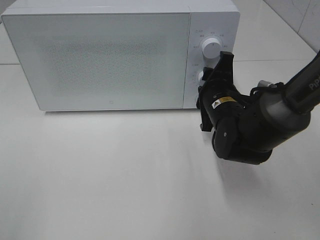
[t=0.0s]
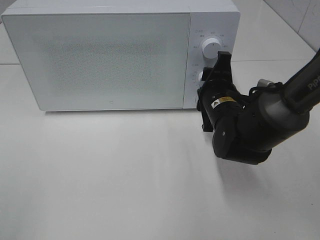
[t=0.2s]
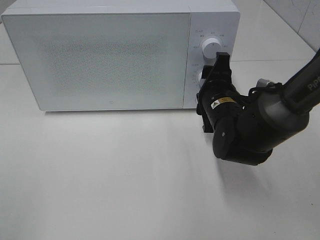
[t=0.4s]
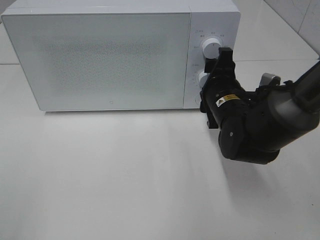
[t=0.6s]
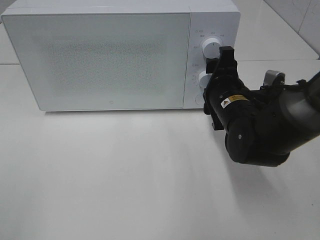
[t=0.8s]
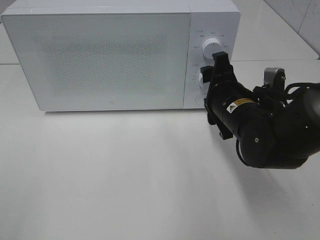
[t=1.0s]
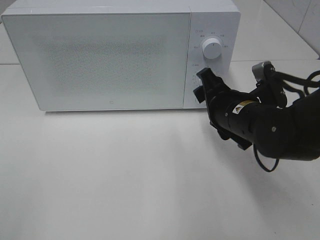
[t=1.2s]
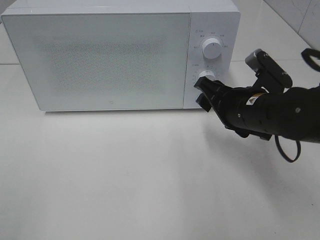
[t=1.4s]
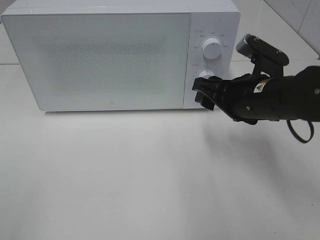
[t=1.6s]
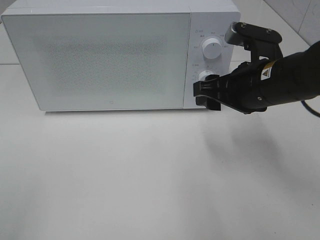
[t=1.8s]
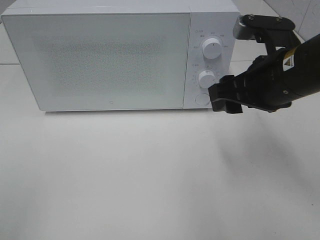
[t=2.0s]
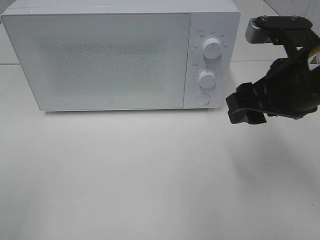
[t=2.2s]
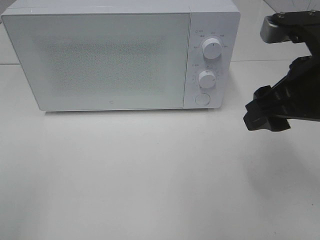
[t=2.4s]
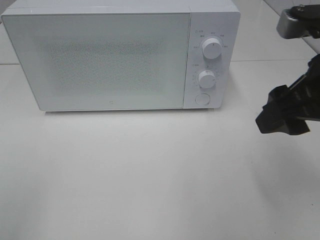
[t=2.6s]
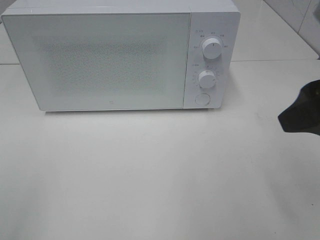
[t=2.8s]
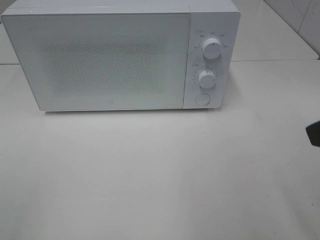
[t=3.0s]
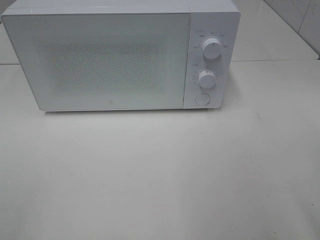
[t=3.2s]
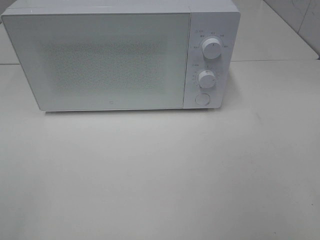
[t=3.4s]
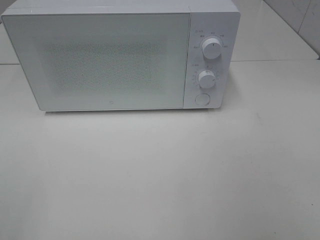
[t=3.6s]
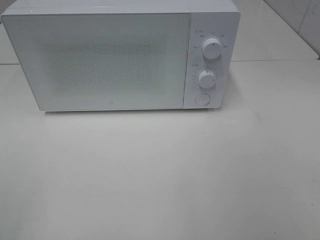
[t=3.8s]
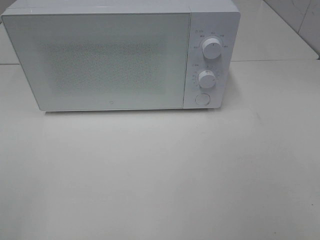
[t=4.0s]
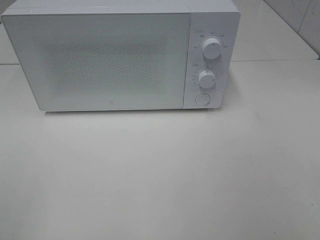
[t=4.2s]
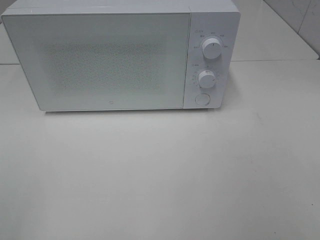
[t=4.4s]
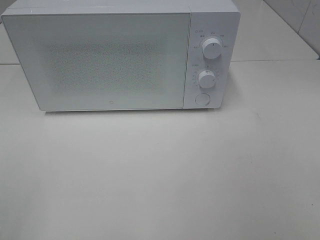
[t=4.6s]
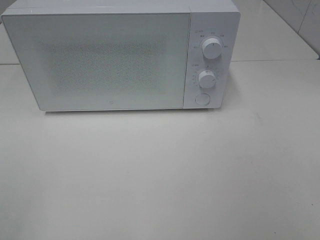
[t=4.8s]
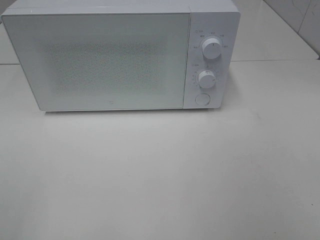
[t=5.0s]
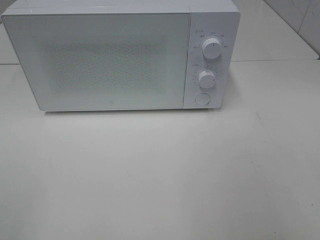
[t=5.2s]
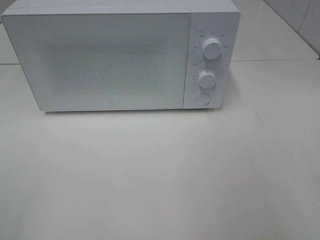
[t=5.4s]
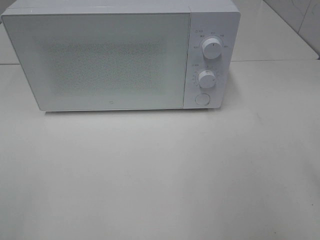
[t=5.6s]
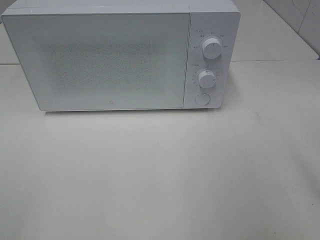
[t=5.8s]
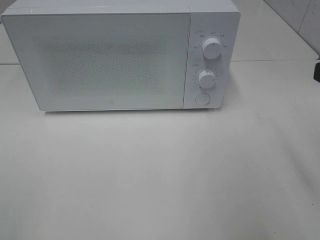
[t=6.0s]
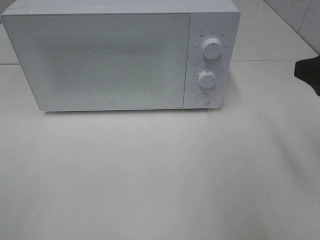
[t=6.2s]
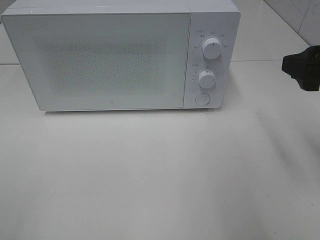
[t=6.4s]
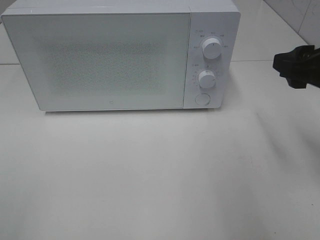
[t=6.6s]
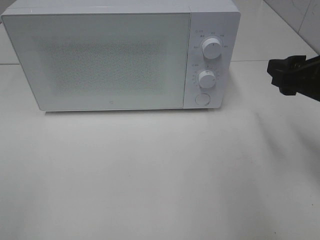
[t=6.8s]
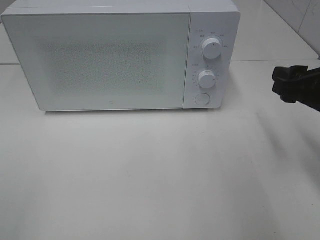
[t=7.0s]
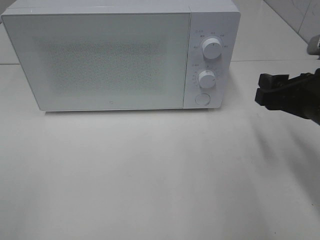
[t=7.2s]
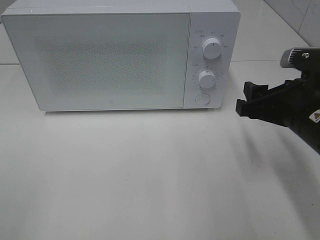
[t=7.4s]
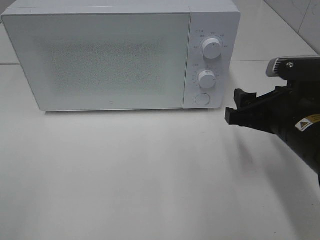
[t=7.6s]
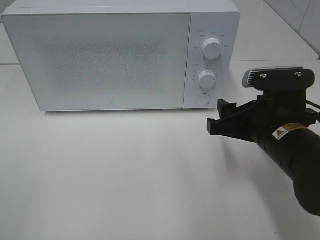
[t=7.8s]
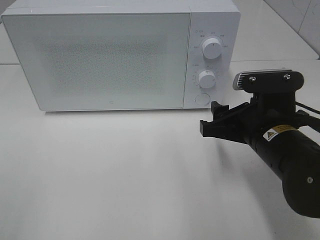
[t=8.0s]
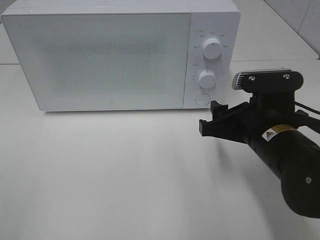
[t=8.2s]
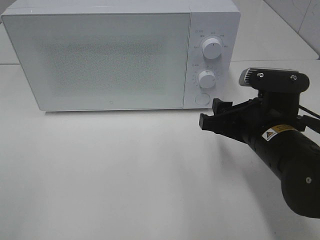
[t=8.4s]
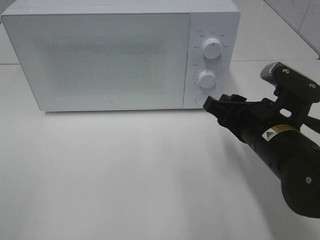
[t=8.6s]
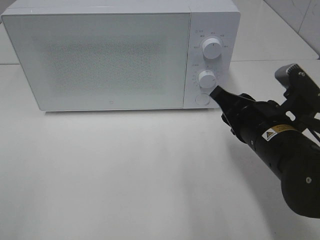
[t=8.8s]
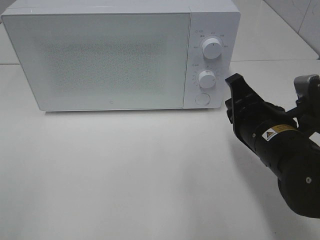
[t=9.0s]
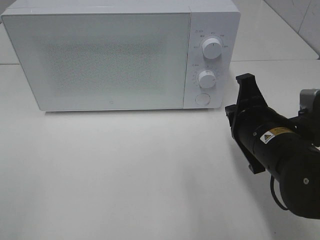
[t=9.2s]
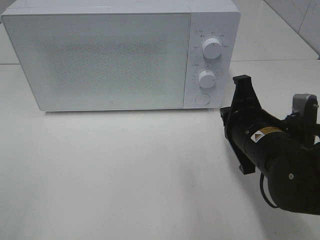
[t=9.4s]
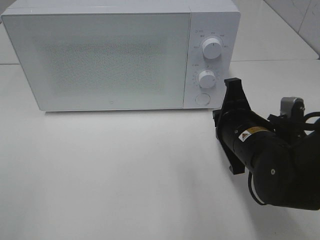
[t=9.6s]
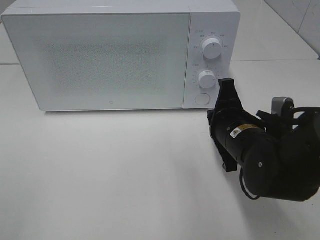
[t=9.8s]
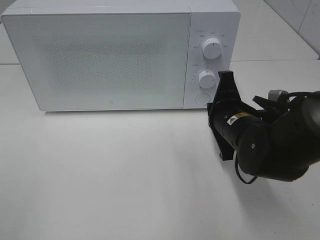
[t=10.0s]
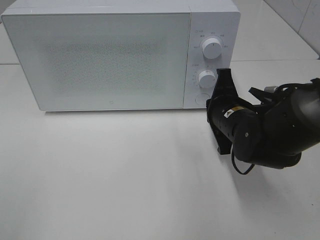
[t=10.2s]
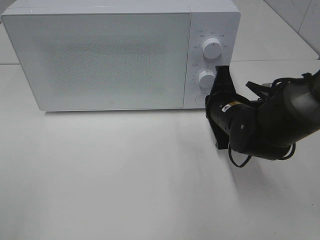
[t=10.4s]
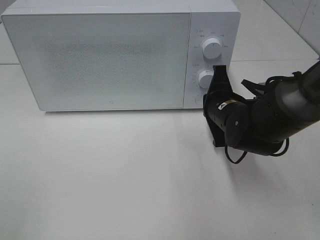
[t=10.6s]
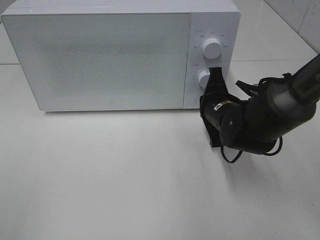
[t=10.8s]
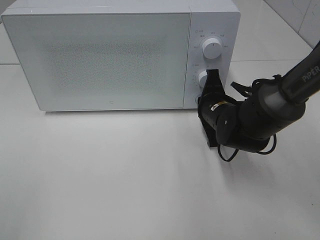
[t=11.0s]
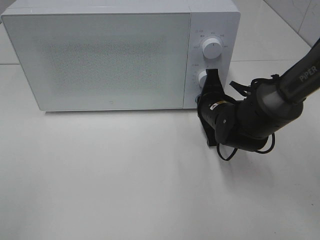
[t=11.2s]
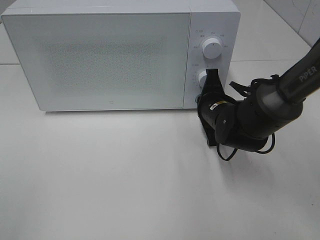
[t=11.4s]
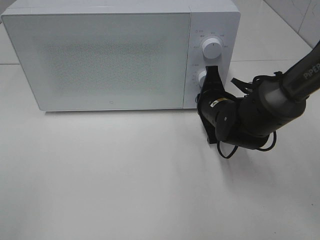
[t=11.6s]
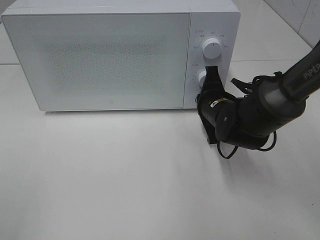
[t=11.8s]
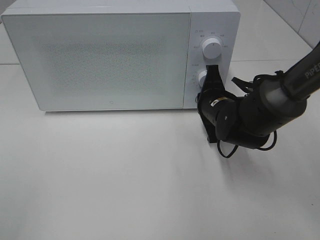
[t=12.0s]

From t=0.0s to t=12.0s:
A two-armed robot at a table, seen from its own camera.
Task of the whole recording: Heat the burger.
From t=0.0s to t=1.6s: The right gripper goes approximately 5 cm upward.
From t=1.6s to t=3.0s: The right gripper is displaced backward, upward and to the right by roughly 20 cm.
From t=6.0s to t=7.6s: The right gripper is displaced downward, to the left and forward by roughly 15 cm.
From t=7.6s to t=9.0s: The right gripper closes its fingers.
From t=9.0s to t=10.4s: The right gripper shifts some 10 cm forward.
From t=10.4s to t=12.0s: There are only small adjustments of the grippers.

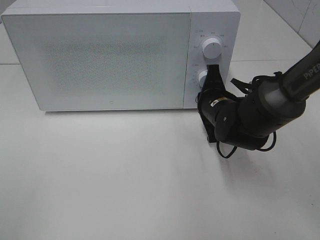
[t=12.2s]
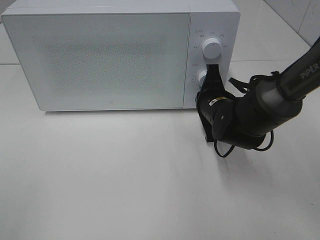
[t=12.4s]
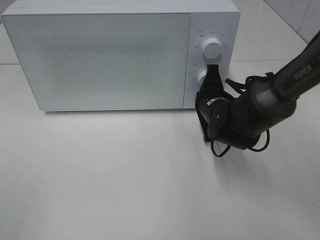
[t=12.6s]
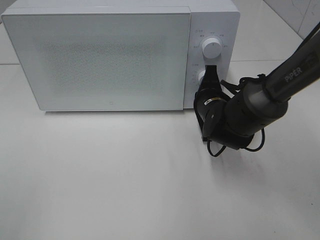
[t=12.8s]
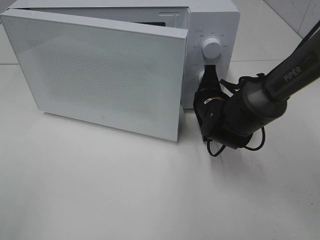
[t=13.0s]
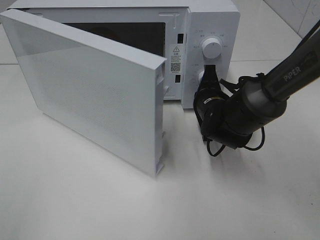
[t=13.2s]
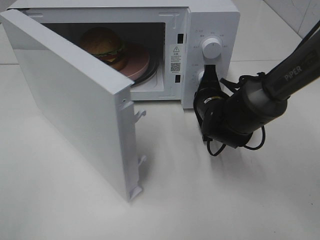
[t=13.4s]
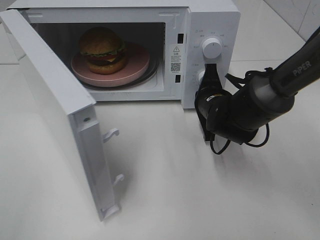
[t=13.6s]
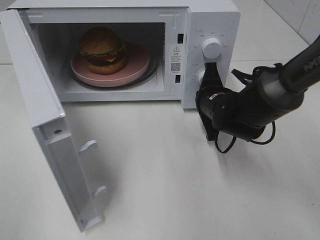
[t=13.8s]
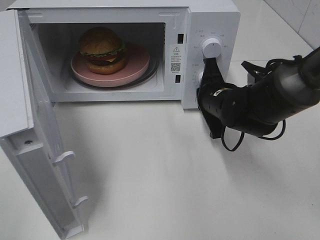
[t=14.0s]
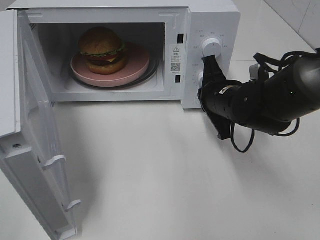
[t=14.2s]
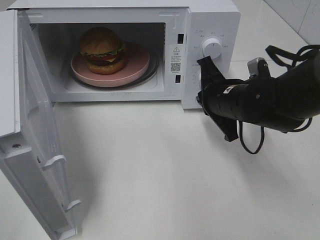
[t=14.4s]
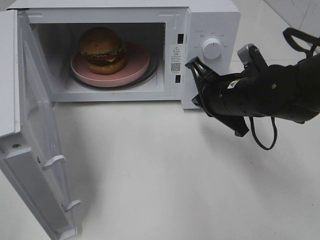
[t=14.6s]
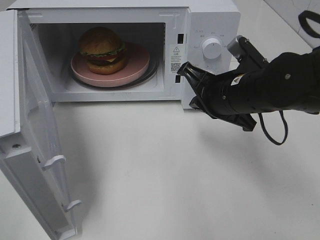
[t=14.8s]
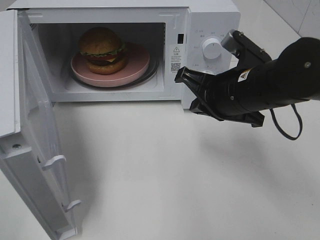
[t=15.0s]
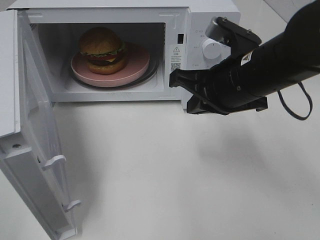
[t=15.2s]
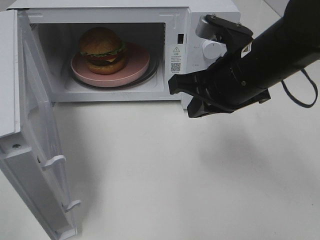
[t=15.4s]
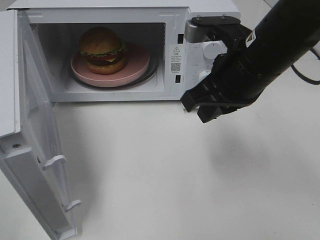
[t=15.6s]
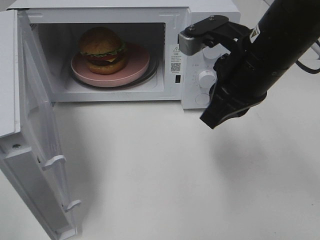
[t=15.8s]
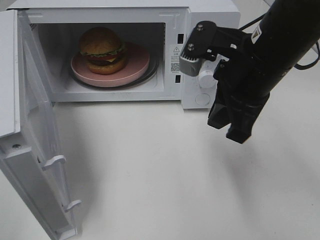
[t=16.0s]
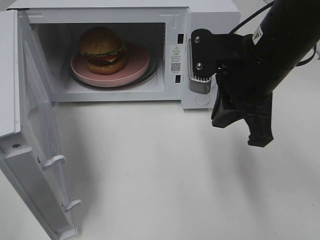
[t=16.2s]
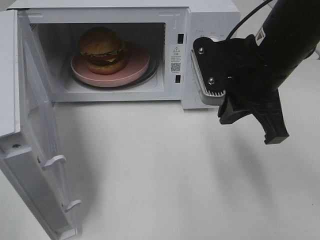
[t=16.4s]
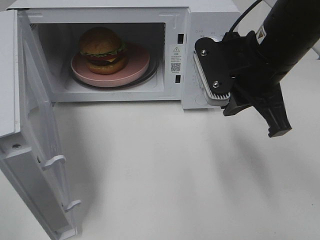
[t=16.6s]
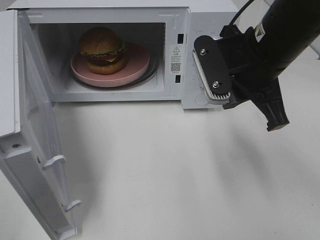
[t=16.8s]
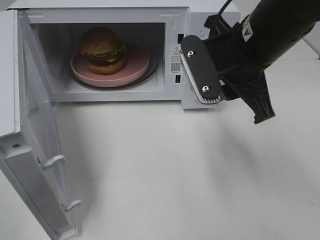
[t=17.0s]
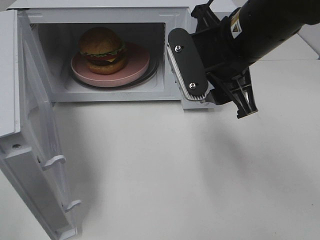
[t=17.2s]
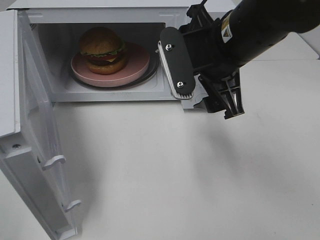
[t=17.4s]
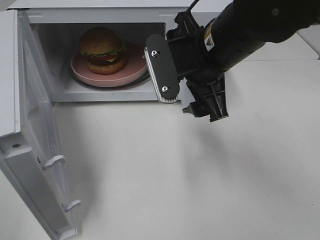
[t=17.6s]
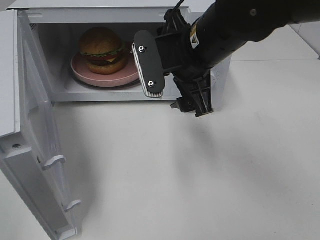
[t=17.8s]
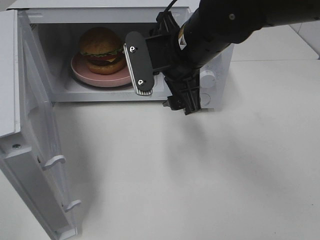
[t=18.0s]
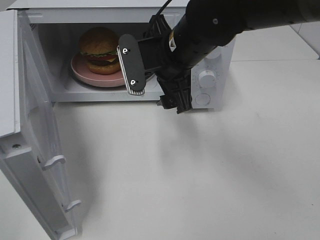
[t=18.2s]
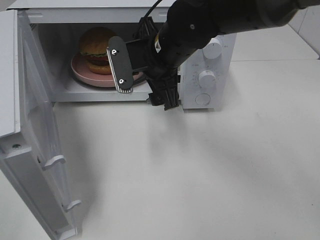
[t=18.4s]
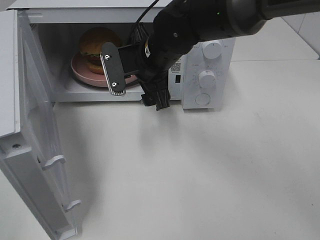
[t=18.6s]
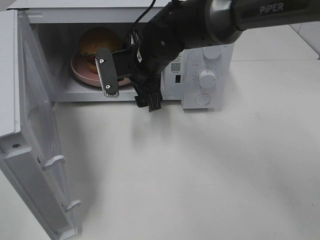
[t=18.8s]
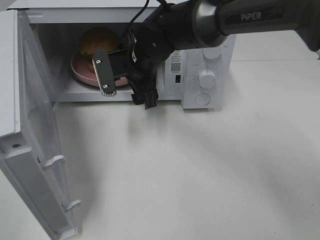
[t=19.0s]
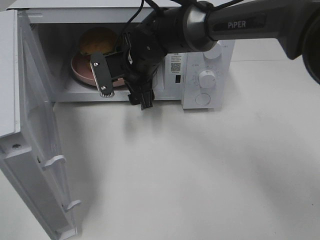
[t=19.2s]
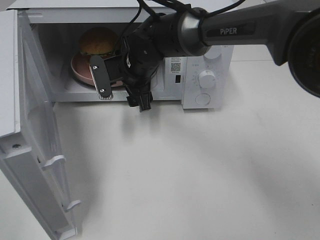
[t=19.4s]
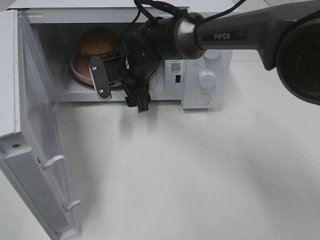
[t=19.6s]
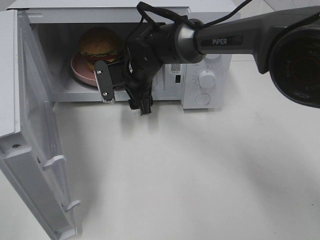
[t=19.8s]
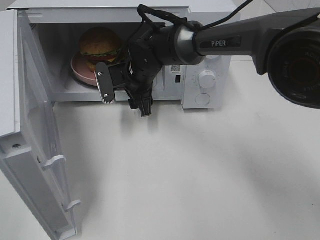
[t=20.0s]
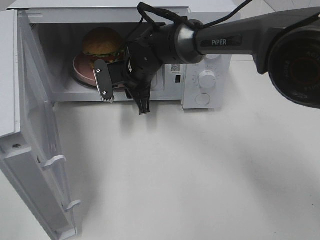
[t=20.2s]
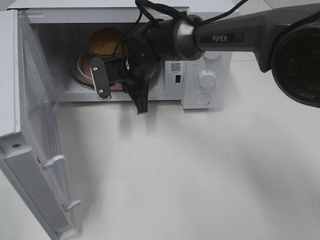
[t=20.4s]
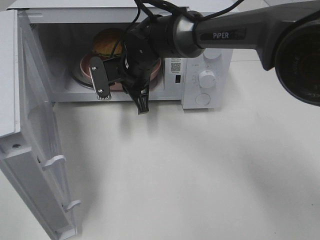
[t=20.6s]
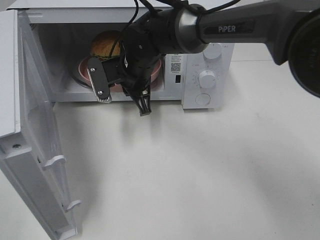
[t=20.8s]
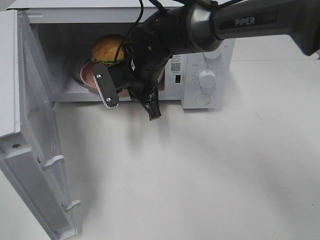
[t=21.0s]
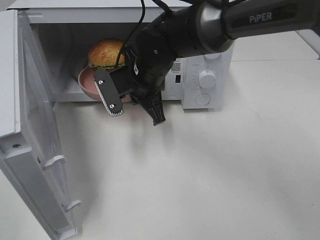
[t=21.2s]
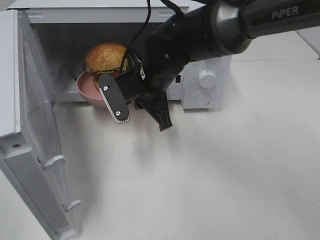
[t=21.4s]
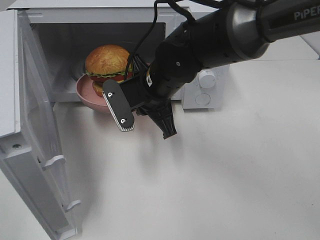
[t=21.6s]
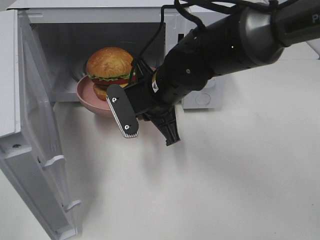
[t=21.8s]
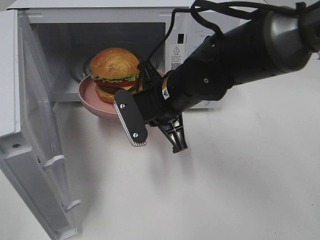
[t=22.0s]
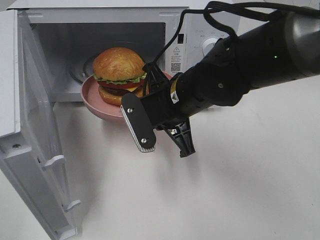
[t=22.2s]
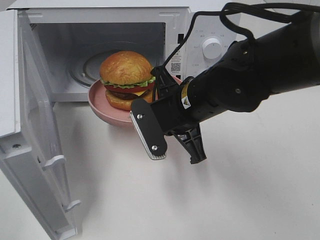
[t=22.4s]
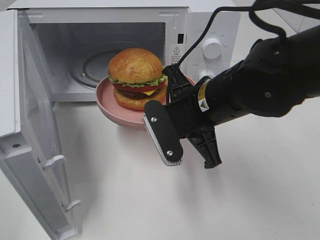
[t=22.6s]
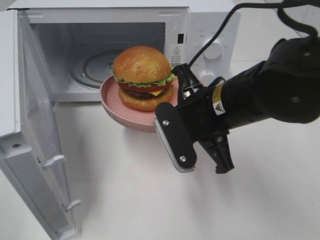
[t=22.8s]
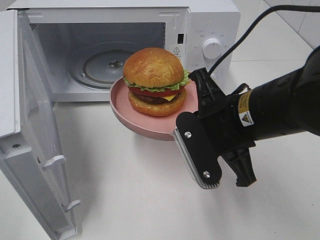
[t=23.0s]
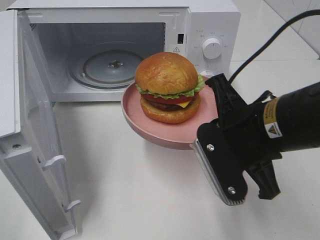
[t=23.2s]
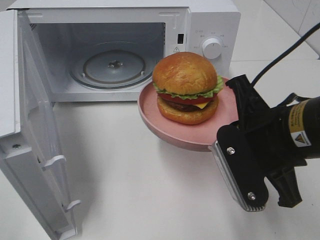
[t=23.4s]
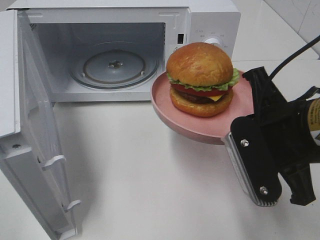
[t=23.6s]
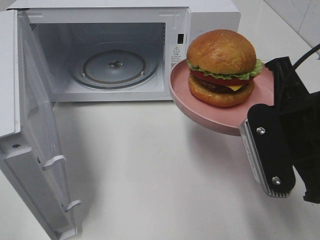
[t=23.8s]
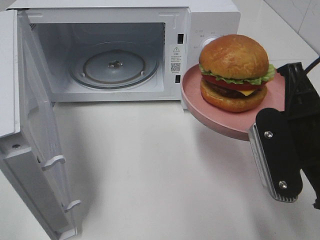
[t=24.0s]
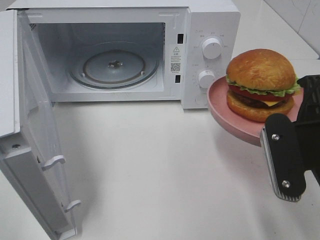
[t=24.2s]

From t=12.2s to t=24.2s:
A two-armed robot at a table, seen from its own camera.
Task of the whole recording: Heat the burger.
Step, from t=14.2s to t=21.4s: Right hand: grab the plate with the hamburger.
From t=13.8s to t=15.2s: The right gripper travels upward and backward by some 15 cm.
From t=16.6s to t=18.2s: The right gripper travels to the left and forward by roughly 10 cm, and opens.
From t=18.2s to t=19.8s: The right gripper shifts about 15 cm forward, downward and to the left.
From t=19.8s to t=21.2s: The right gripper heads backward, covering approximately 5 cm, and closes its fingers.
From t=21.2s to t=22.6s: The right gripper heads backward and to the right, covering some 15 cm.
From t=22.6s to t=24.2s: The right gripper moves to the right and backward, some 15 cm.
